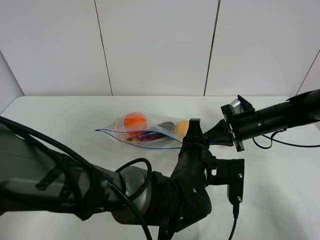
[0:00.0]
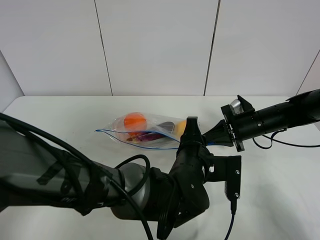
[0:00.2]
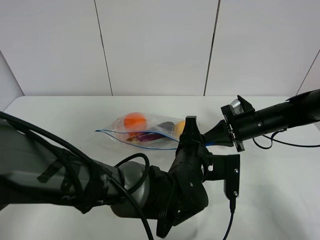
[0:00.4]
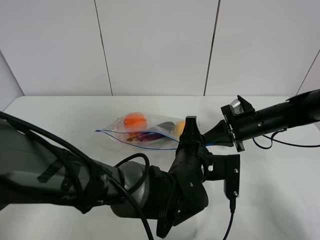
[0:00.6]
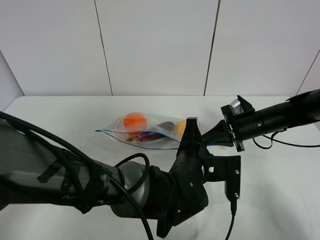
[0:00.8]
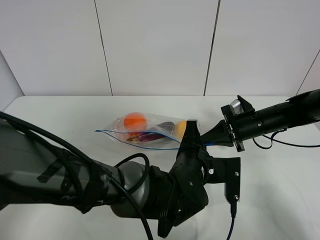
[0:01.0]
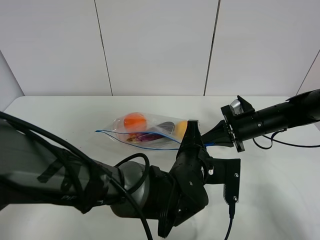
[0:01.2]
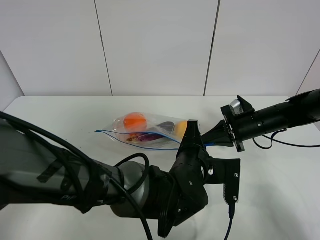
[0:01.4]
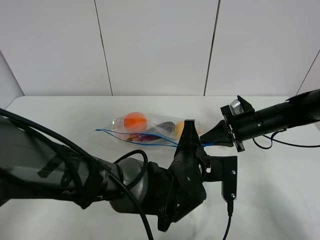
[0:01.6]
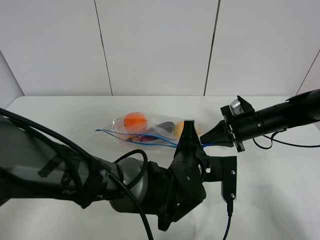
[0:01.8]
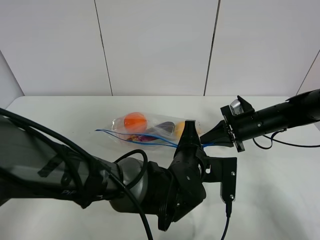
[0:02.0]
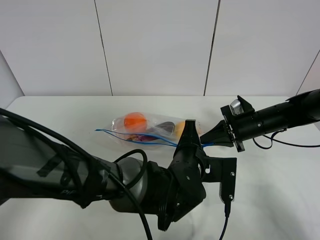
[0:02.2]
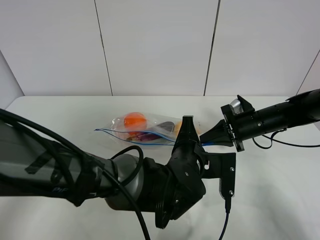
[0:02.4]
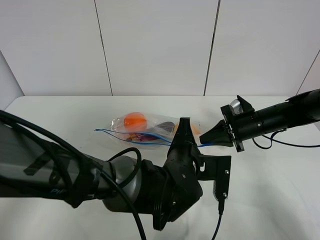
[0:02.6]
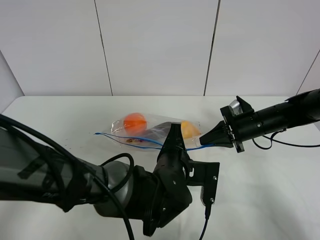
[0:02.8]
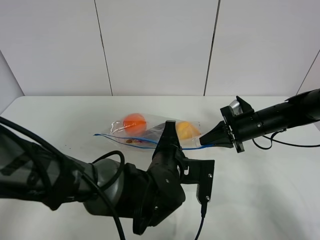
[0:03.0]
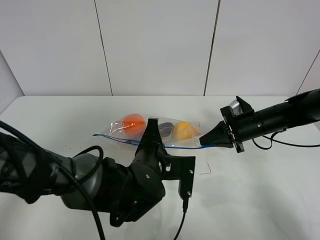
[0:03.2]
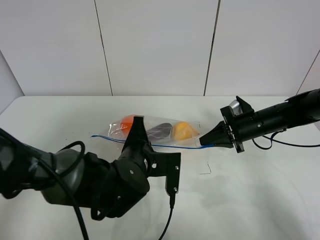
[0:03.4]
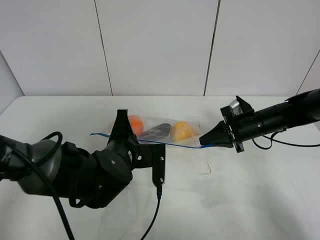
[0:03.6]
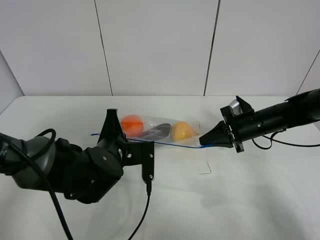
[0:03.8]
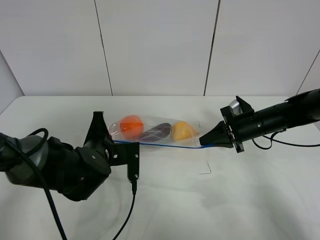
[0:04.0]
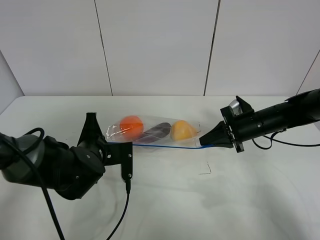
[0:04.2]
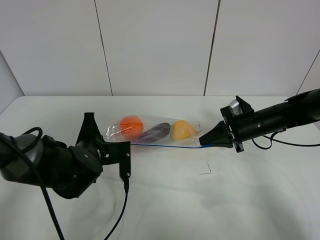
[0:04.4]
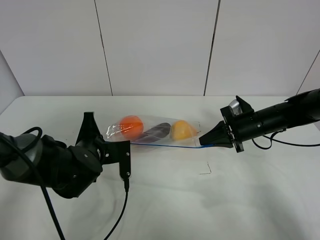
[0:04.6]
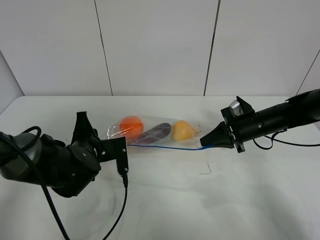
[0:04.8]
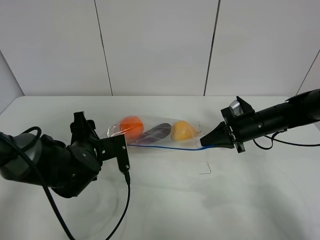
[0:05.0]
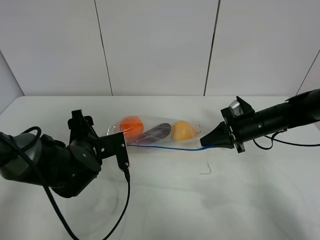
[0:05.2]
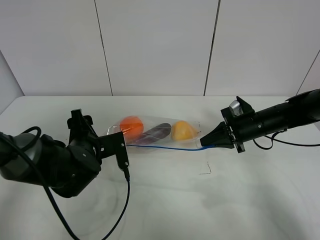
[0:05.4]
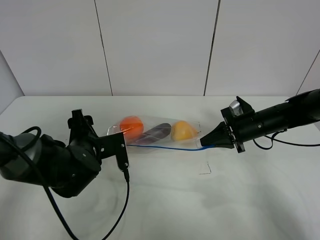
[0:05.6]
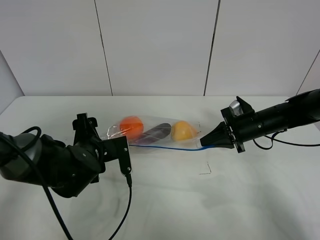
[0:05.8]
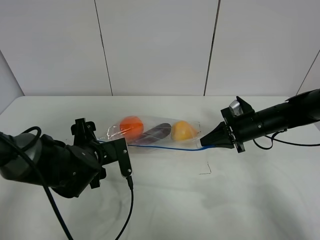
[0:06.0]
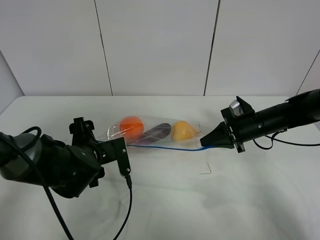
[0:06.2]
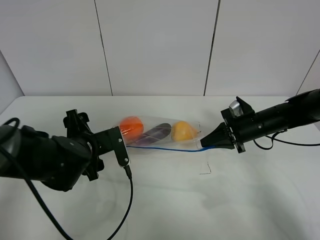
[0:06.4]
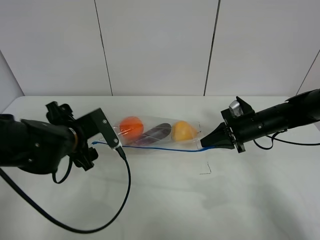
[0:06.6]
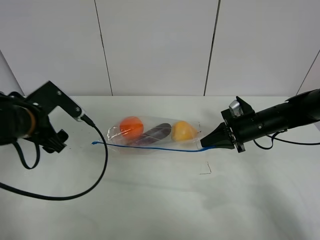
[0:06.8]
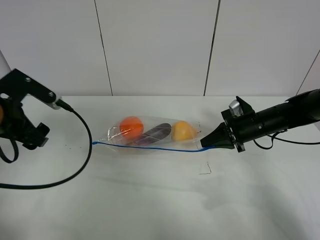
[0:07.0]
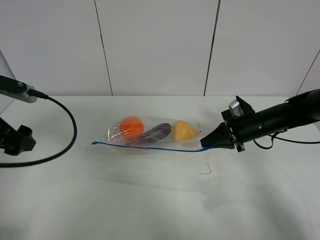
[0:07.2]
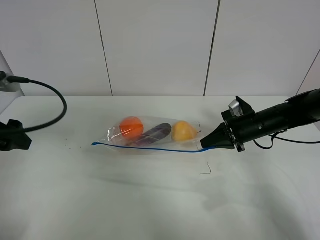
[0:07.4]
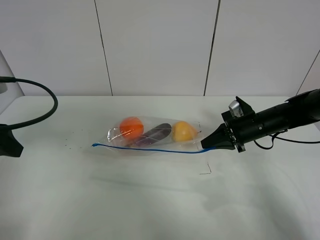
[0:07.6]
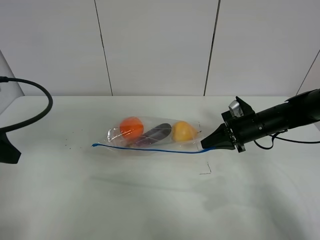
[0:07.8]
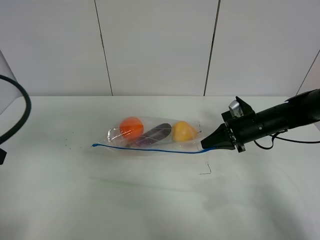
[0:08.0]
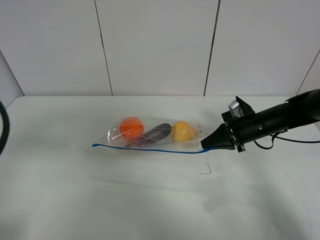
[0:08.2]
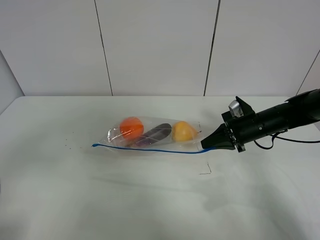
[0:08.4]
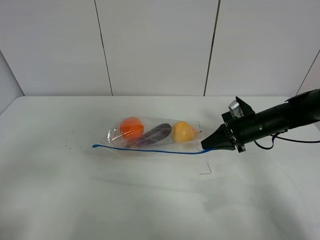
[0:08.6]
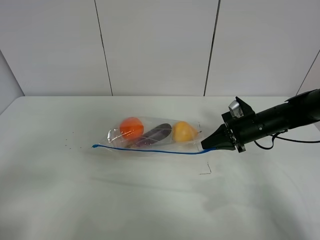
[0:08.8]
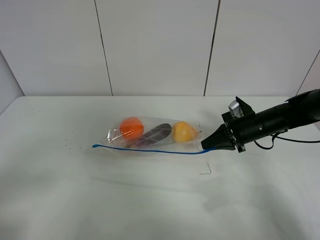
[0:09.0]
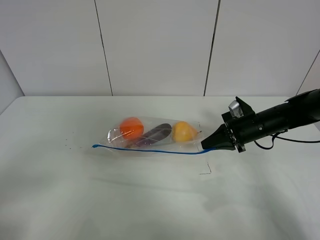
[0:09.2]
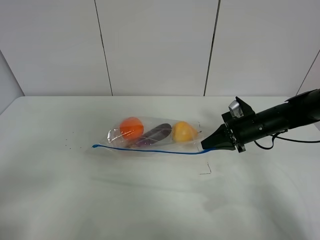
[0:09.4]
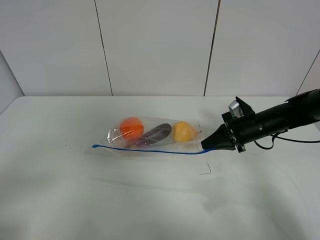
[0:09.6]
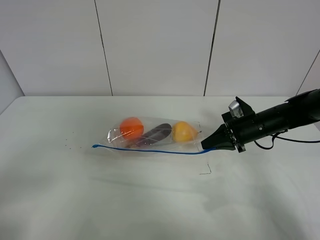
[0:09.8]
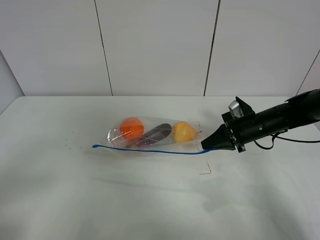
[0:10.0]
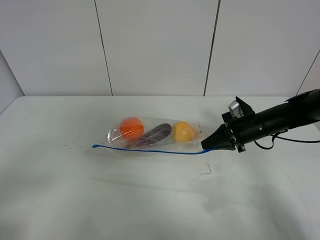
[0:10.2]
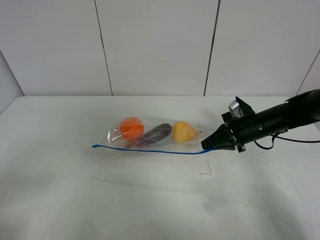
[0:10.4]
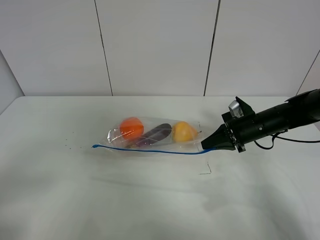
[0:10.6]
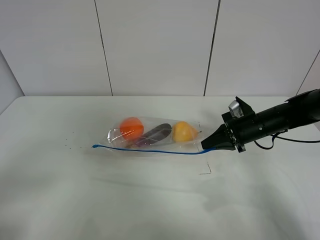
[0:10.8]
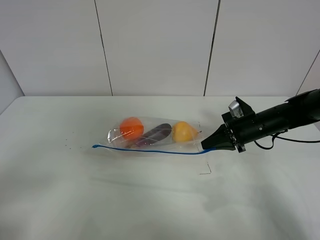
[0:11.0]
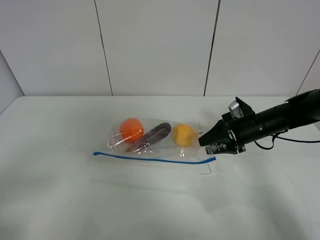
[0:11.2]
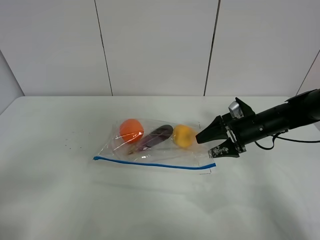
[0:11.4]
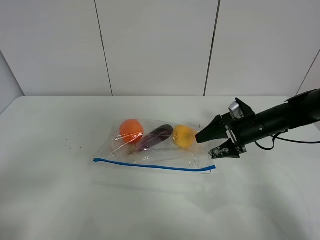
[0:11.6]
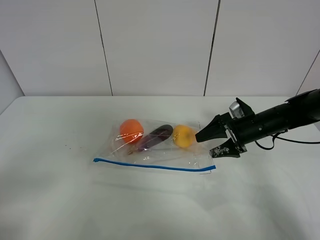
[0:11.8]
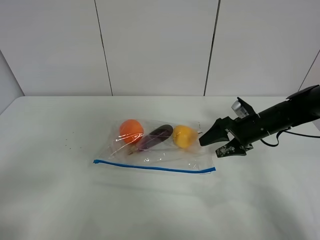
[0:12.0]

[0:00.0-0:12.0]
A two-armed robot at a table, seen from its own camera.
Step, 0:00.0 to 0:05.0: Pull the fruit bag with left gripper.
0:00.0 to 0:01.6: The left gripper closes up.
0:01.6 to 0:03.0: The grippers move only a little.
0:03.0 to 0:04.4: The left gripper shifts roughly 15 cm to the left.
0:04.4 to 0:06.0: The left gripper opens its fingers.
0:06.0 to 0:07.6: The left gripper is displaced to the left and upward by roughly 25 cm.
0:07.6 to 0:09.0: The left gripper shifts approximately 20 cm backward.
0:09.0 to 0:10.4: Neither gripper changes place.
0:10.4 to 0:12.0: The right gripper opens its fingers.

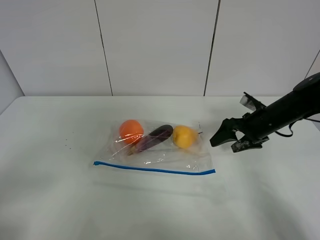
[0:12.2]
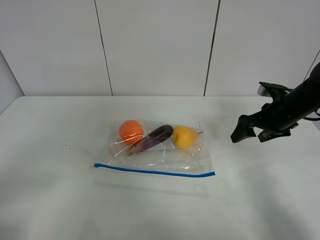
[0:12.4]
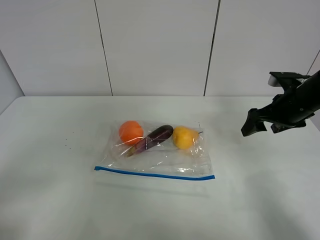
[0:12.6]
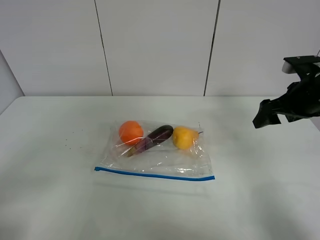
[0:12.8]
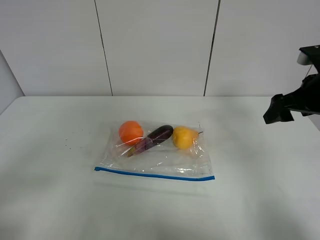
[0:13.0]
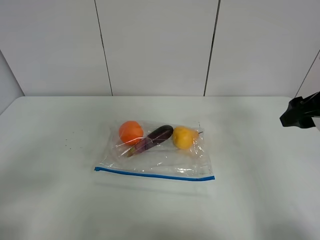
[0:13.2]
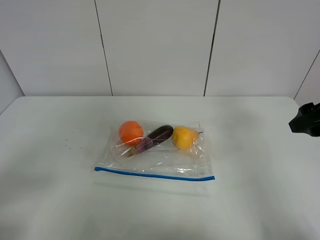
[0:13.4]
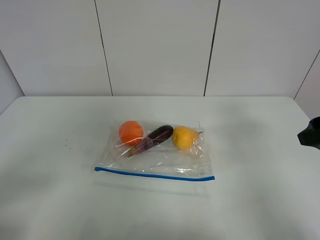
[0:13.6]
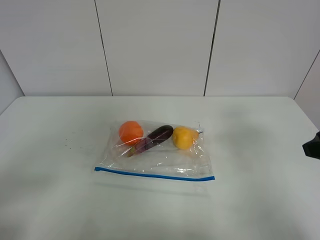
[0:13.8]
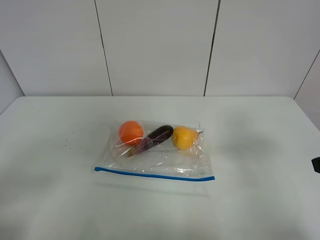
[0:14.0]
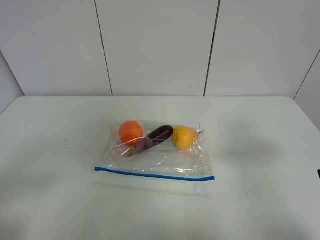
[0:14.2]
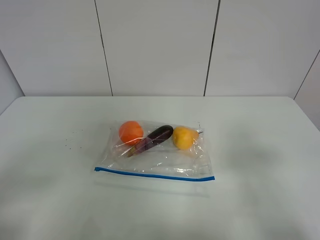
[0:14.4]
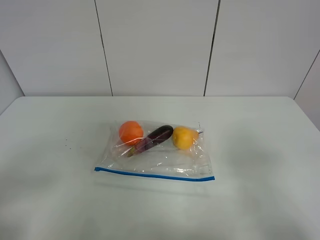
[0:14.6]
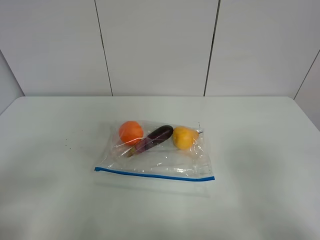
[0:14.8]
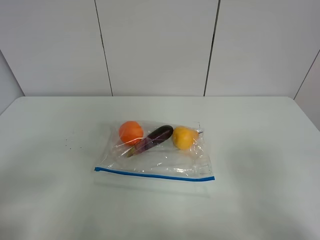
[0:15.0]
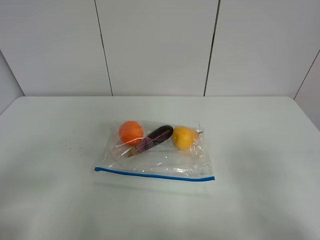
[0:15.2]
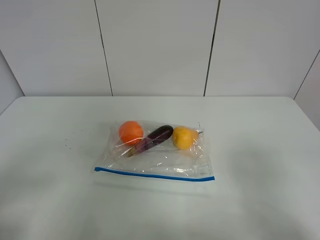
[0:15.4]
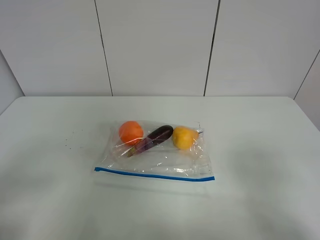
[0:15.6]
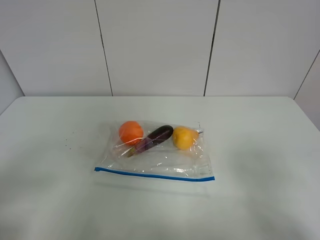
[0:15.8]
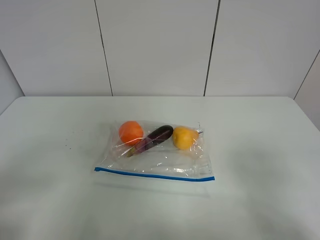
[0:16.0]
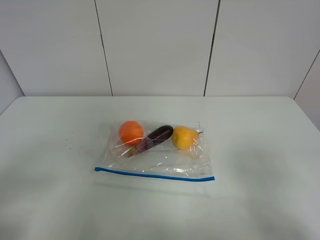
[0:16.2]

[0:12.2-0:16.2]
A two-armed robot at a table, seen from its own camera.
0:12.2 to 0:13.6: The right gripper heads backward and upward, covering approximately 20 cm.
0:13.6 to 0:14.8: The right gripper travels backward by some 15 cm.

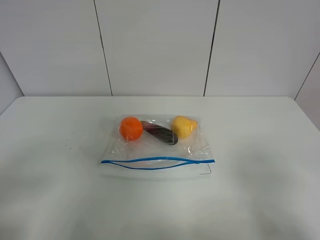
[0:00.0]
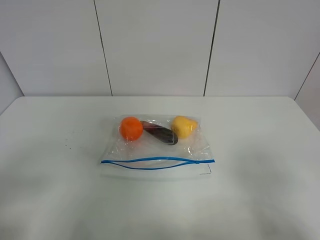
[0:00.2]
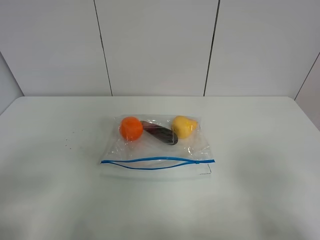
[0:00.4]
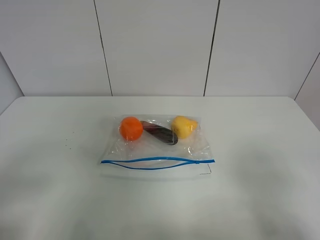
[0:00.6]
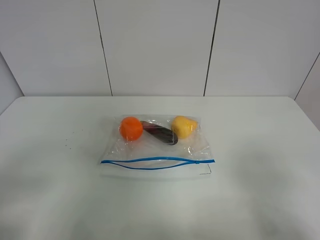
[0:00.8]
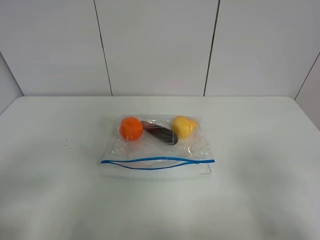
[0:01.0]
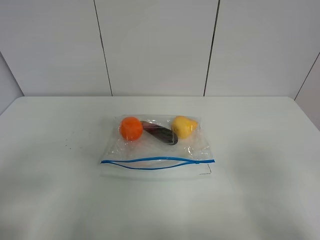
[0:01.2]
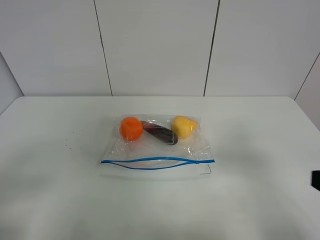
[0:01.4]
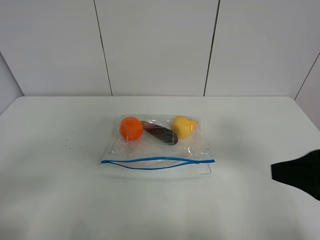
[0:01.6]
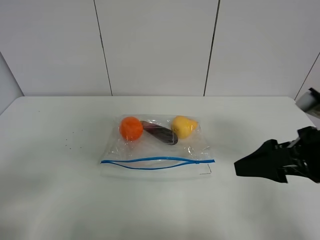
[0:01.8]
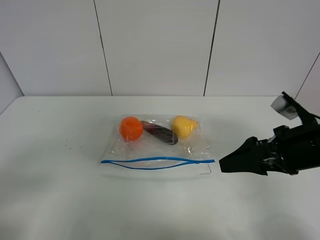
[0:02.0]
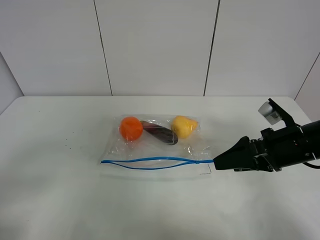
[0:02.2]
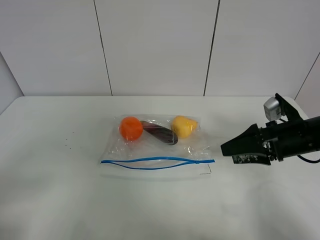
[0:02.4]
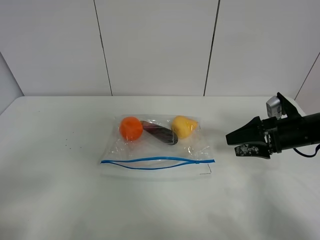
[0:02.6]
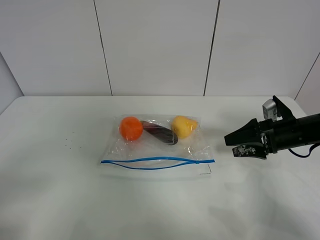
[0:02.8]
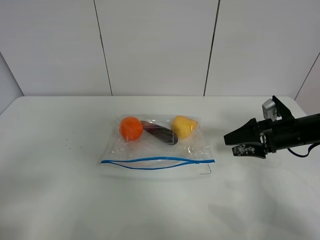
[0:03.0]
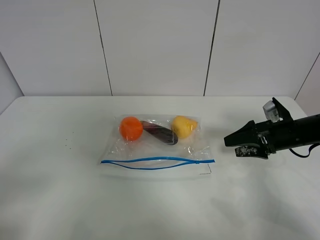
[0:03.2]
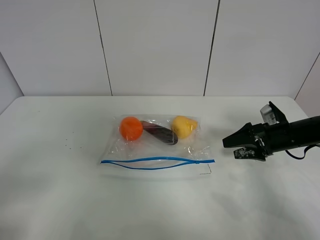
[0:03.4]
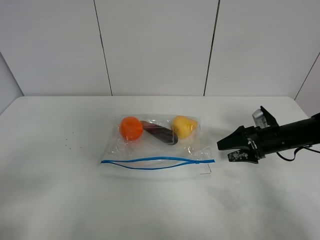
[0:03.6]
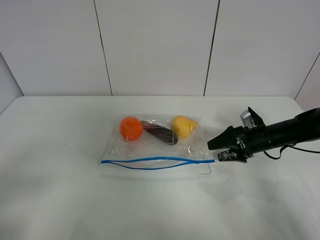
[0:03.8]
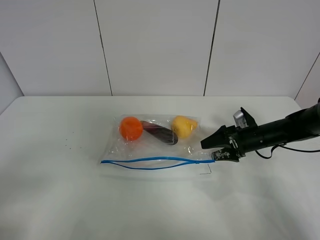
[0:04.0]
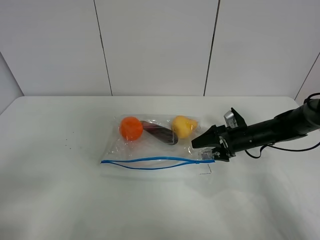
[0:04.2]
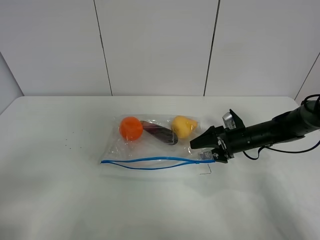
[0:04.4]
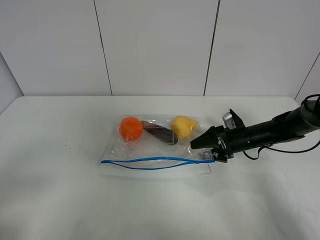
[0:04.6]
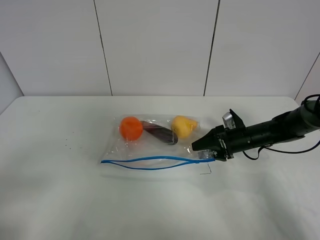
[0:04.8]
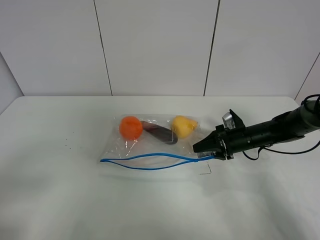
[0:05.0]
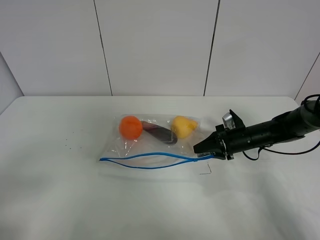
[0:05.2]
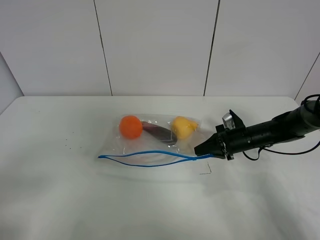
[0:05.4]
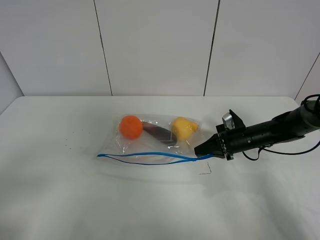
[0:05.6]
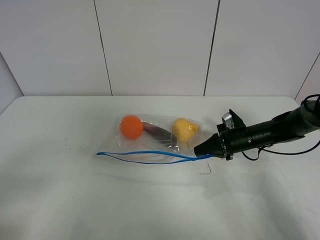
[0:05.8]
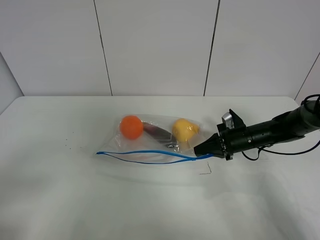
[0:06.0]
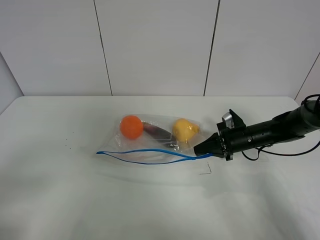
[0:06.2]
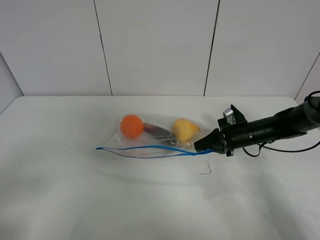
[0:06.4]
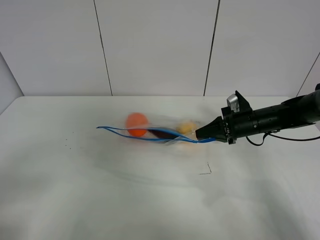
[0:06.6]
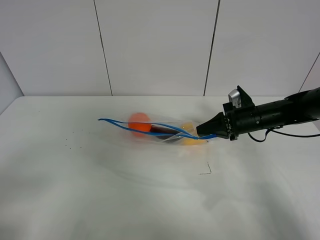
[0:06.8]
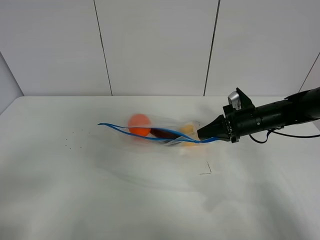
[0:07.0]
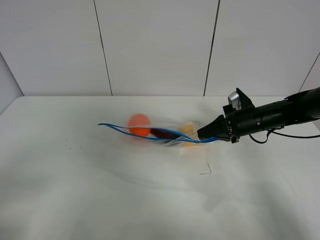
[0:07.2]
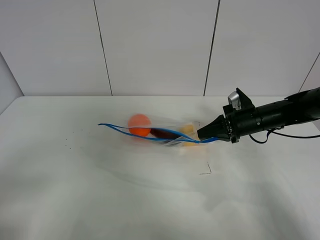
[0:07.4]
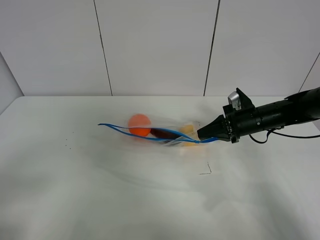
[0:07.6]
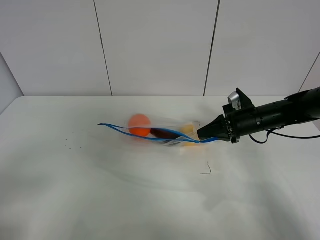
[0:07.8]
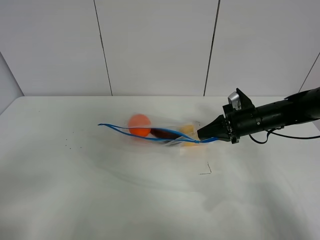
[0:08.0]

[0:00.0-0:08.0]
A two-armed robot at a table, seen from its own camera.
Step, 0:00.0 to 0:05.6: Grasp the fruit bag with right gripper.
Step, 0:05.8 to 0:07.0: Lift the fruit bag with your right gripper.
0:00.0 to 0:01.6: The right gripper moves forward, about 10 cm.
0:01.6 to 0:03.2: The right gripper is displaced forward and downward by approximately 25 cm.
0:03.2 to 0:04.8: The right gripper heads downward, to the left and forward, covering approximately 10 cm, and closes up.
0:04.8 to 0:06.4: The right gripper closes up.
0:06.4 to 0:08.0: There are only small adjustments of the grippers.
